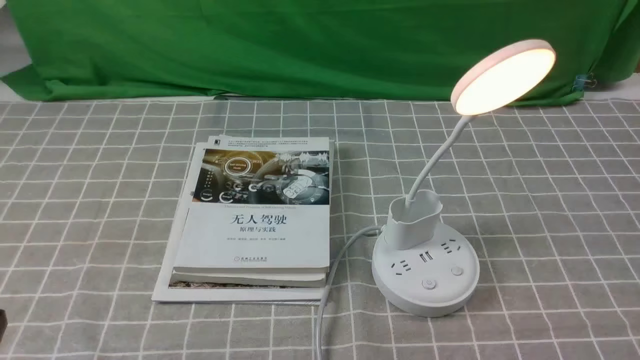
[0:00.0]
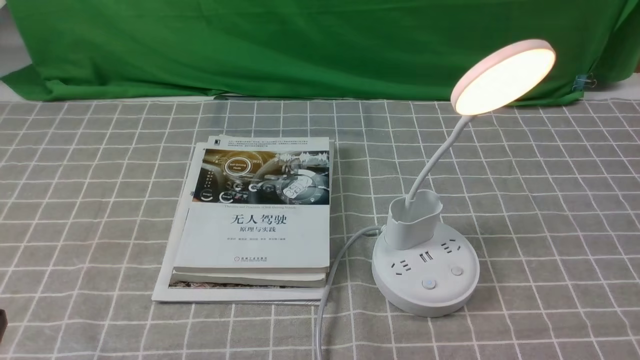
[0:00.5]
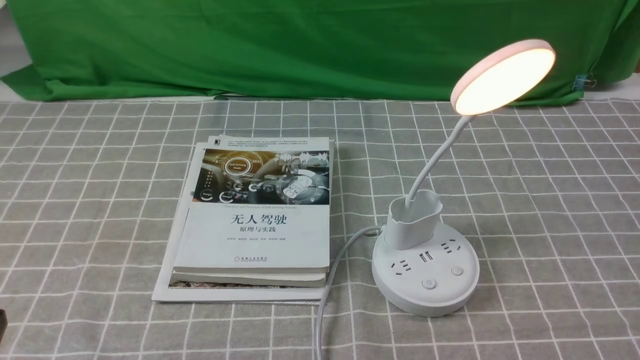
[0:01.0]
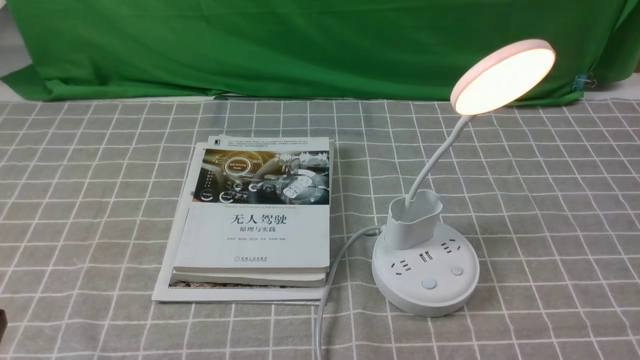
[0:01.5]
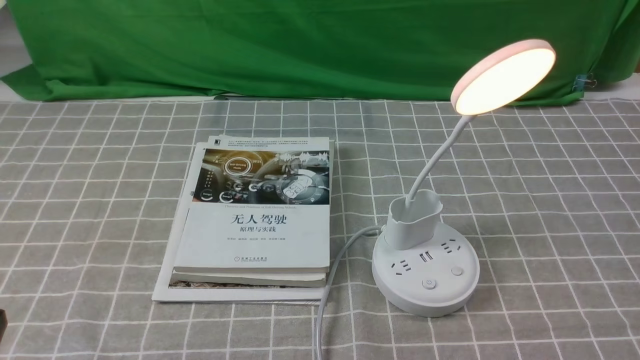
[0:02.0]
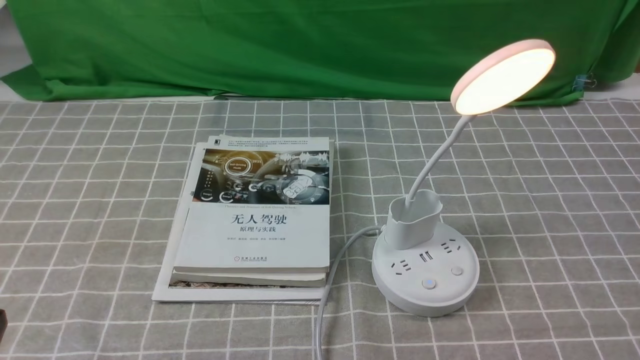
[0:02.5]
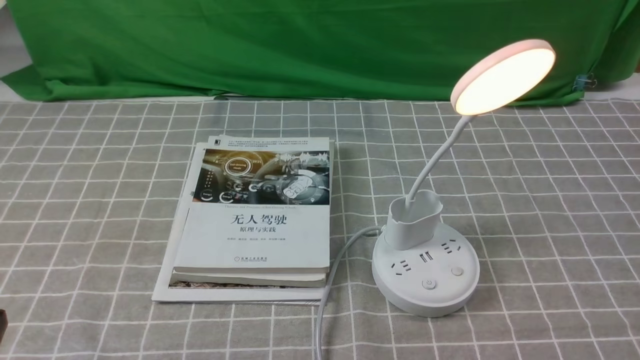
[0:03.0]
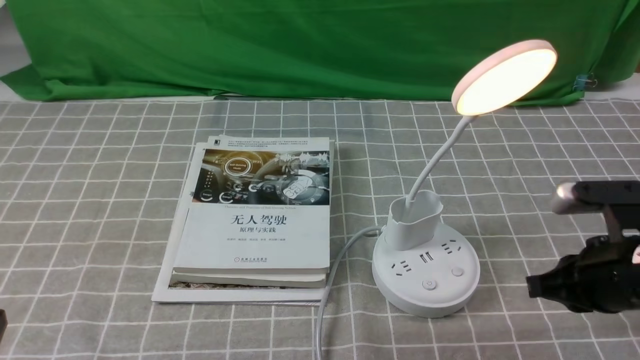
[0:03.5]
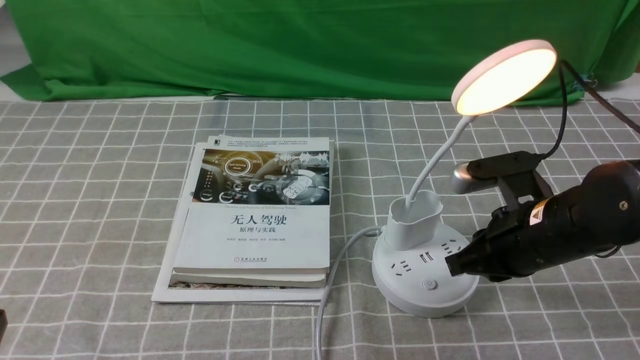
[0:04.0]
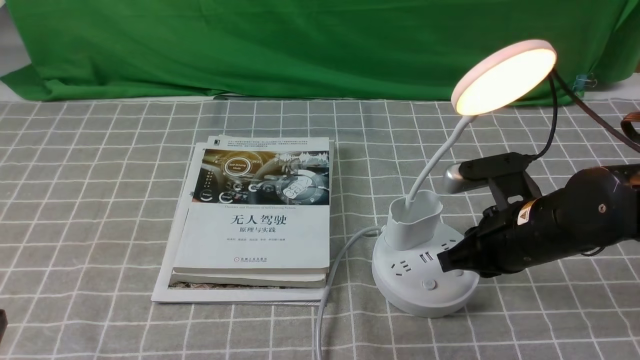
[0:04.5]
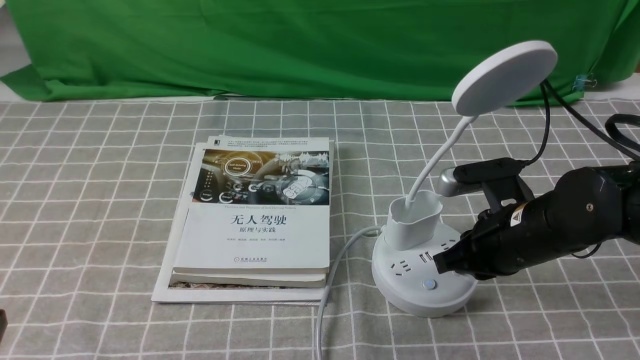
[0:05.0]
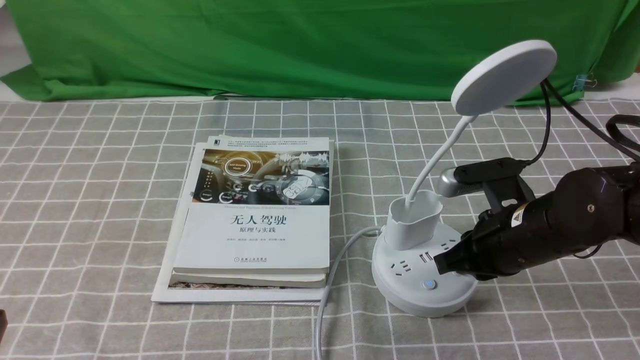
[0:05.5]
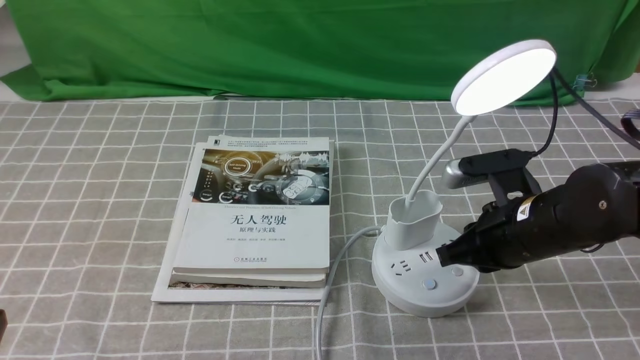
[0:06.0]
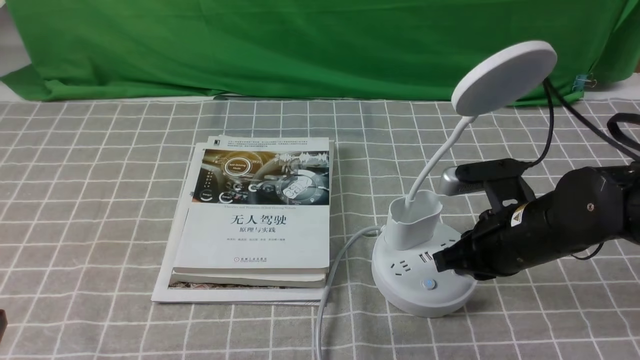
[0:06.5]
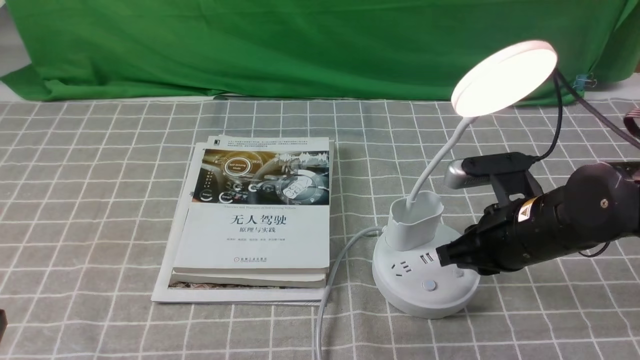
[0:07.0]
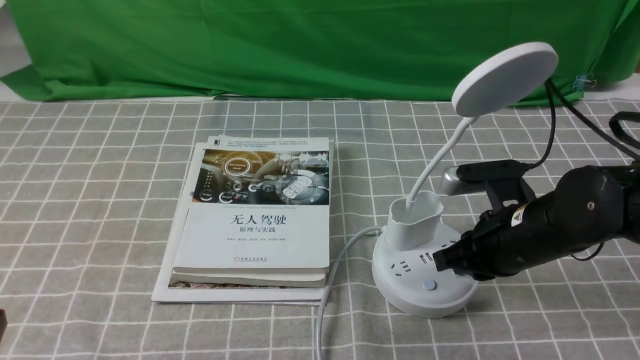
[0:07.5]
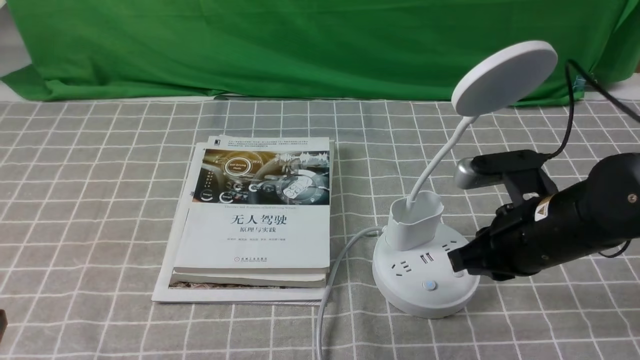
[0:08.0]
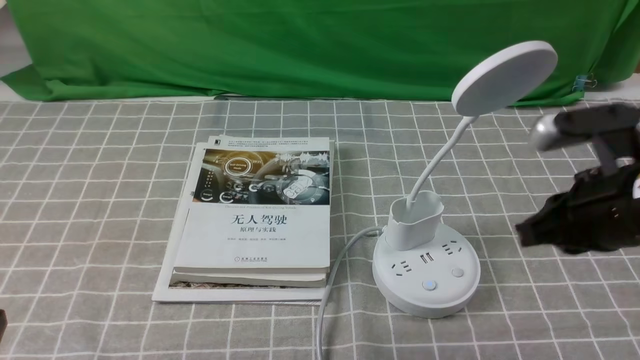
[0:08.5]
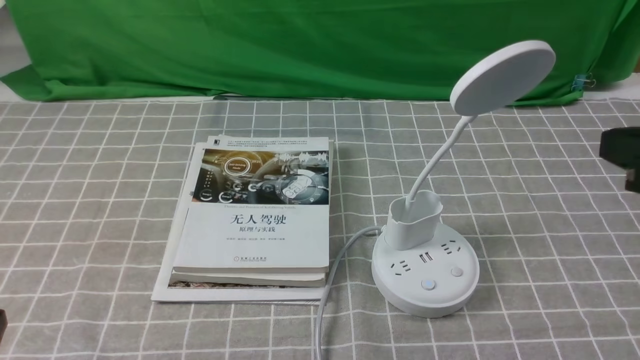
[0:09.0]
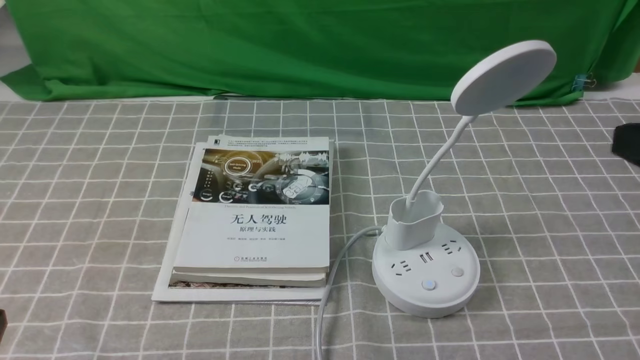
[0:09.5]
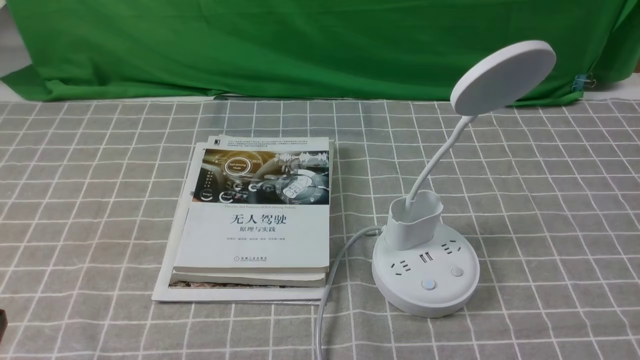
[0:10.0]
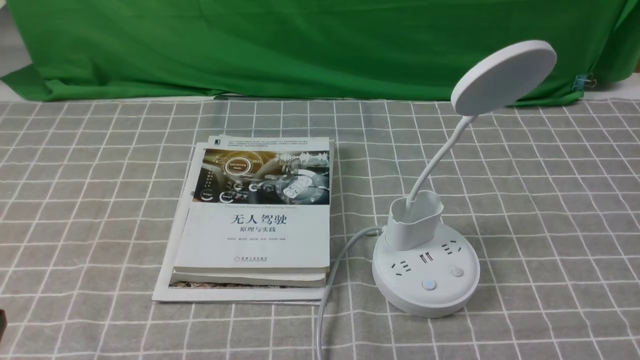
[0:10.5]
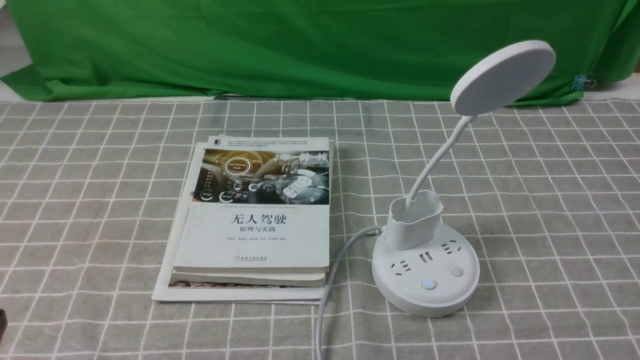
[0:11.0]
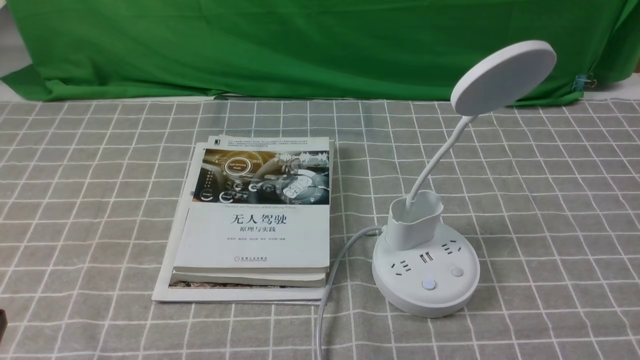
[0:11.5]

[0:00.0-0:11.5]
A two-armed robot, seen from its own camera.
Task of the whole recording: turn off the desk lamp on the grey coffee tablecloth by hand.
Step, 0:00.0 to 0:08.0: use the right arm to press the button switch on the lamp holder.
0:02.0 to 0:04.0: The right gripper heads forward and to the left, covering approximately 25 cm, and closes up.
0:04.0 to 0:06.0: The right gripper opens.
0:06.0 to 0:07.5: Neither gripper changes place.
0:07.5 to 0:09.5: The right gripper goes about 25 cm upward and backward.

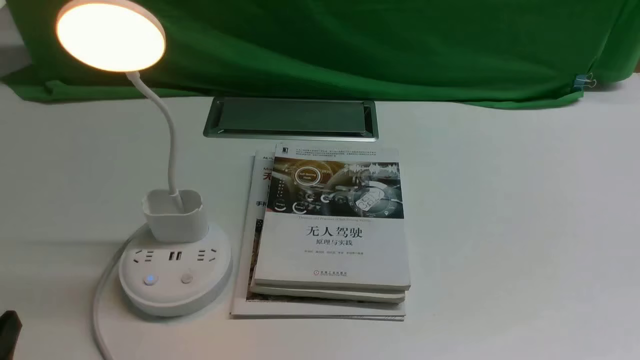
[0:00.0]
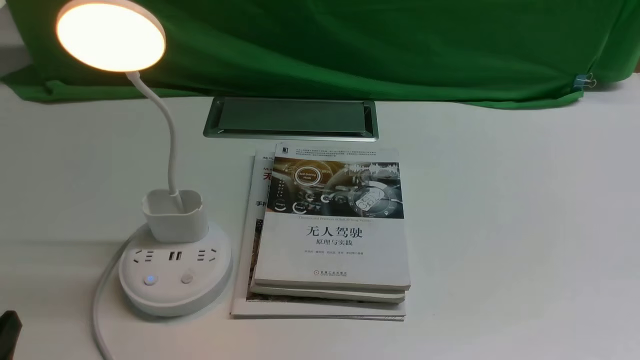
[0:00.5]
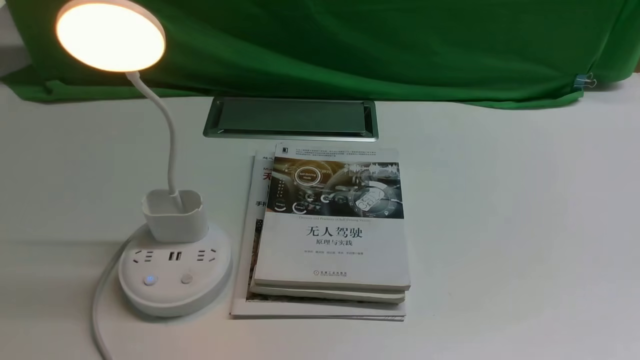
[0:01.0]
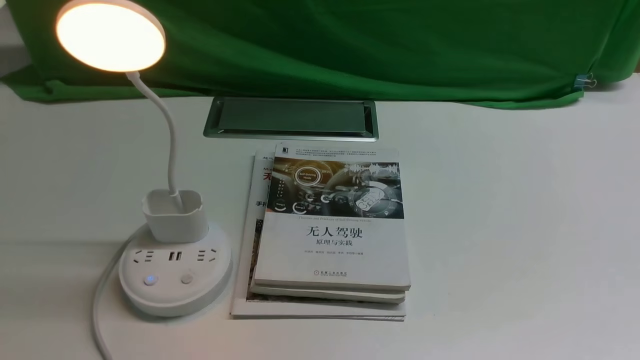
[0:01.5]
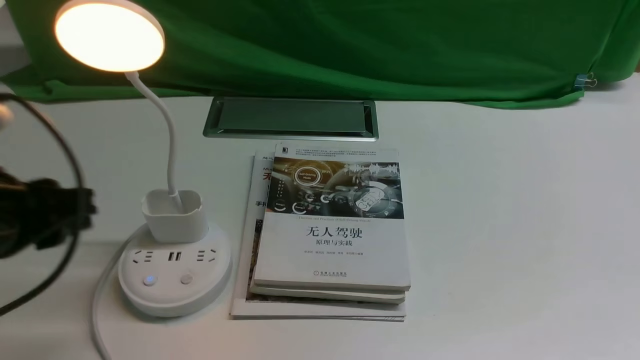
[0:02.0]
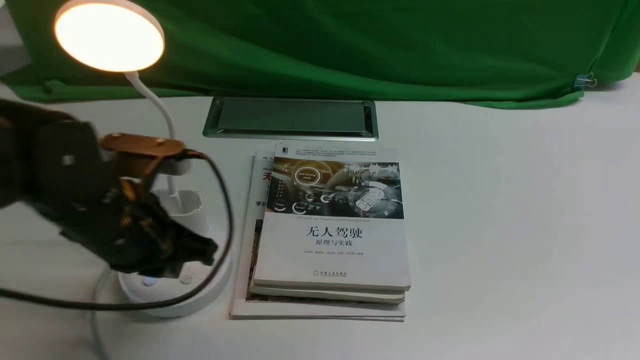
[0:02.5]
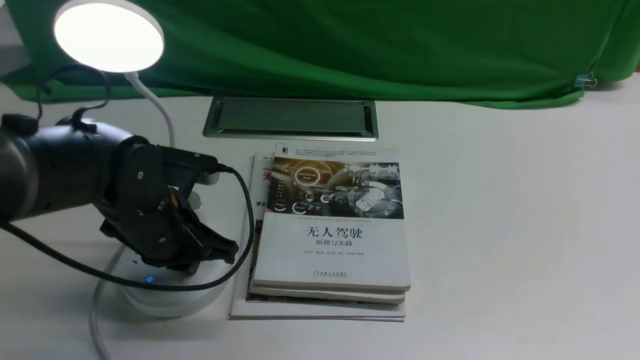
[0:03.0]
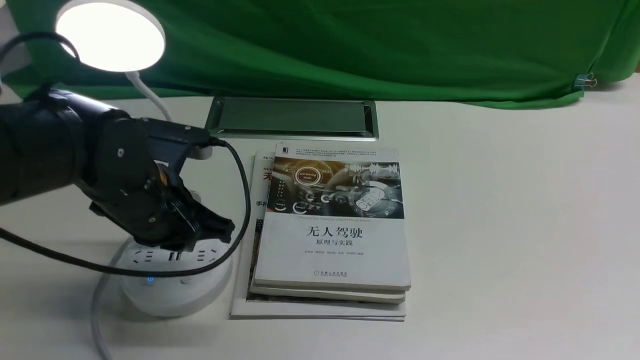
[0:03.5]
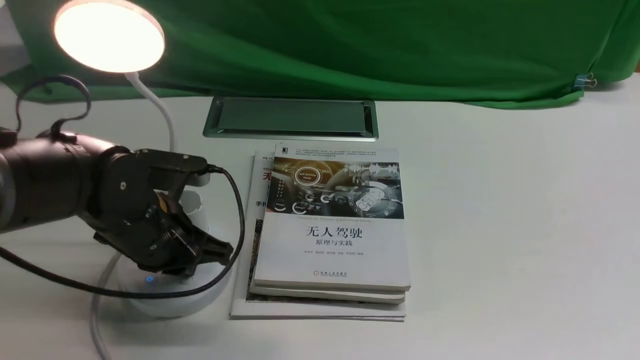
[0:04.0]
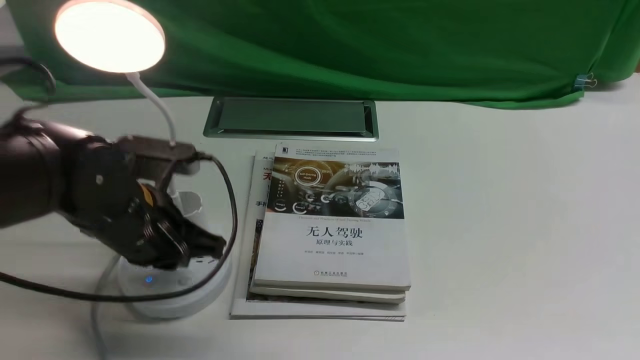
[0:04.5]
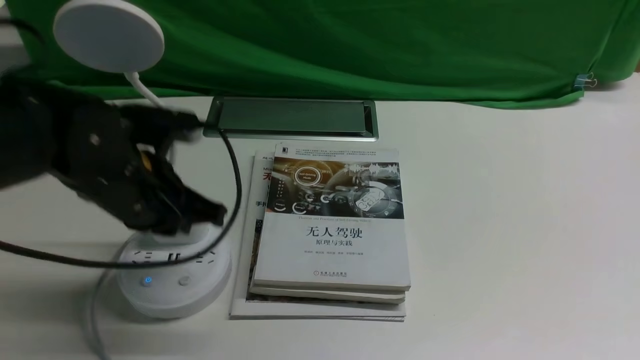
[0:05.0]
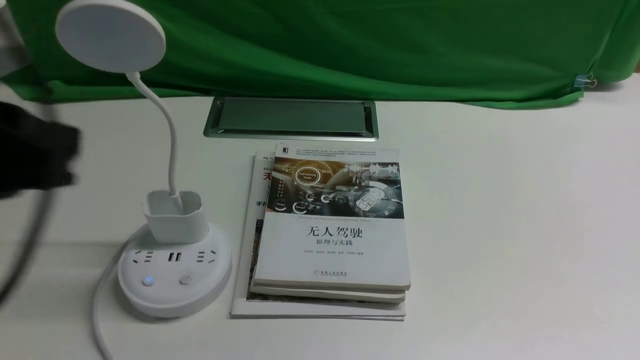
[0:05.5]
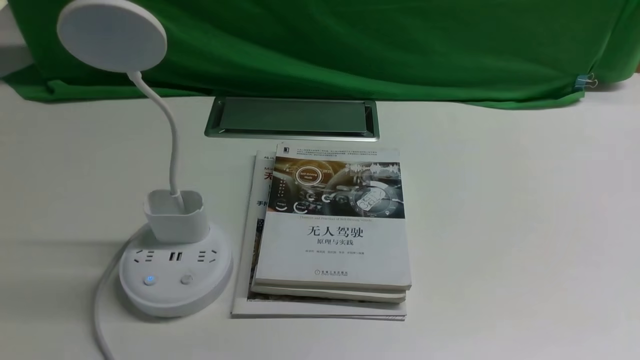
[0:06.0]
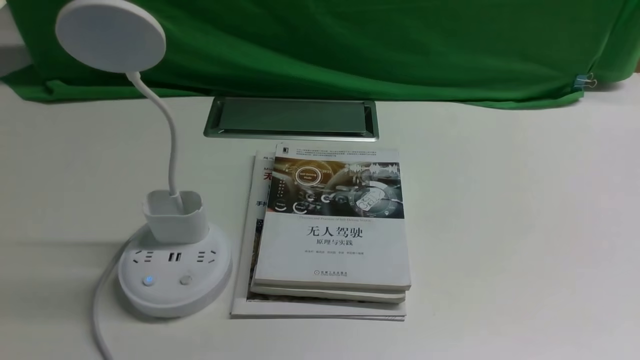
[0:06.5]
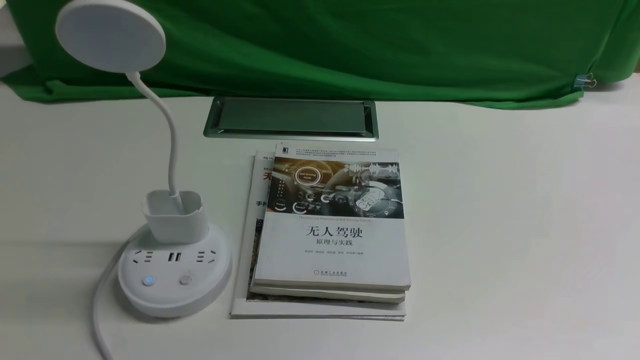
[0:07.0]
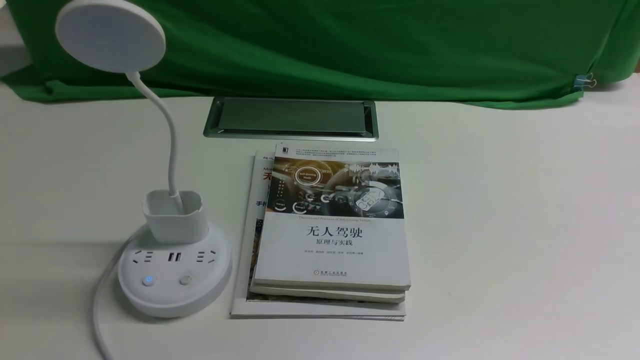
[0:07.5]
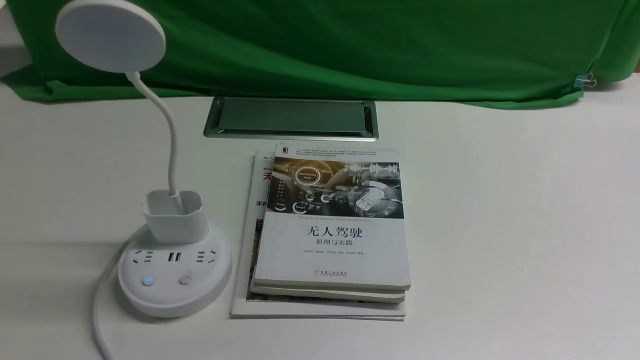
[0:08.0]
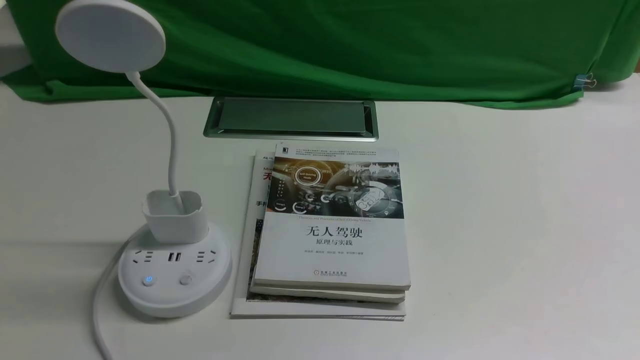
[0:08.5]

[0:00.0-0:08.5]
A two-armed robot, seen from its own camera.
Task of the whole recording: turn off the desk lamp on the white desktop by hand.
Step, 0:00.0 to 0:04.5: use the left arm to press the button switch on the lamp holder.
0:00.0 to 0:02.0: The left gripper is displaced forward and upward by about 20 cm.
0:02.0 to 0:04.0: The left gripper is displaced downward, forward and to the right by approximately 15 cm, and closes up.
0:04.0 to 0:06.5: The left gripper goes some 25 cm backward.
